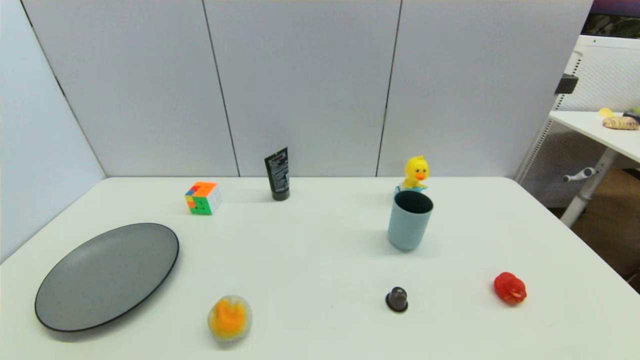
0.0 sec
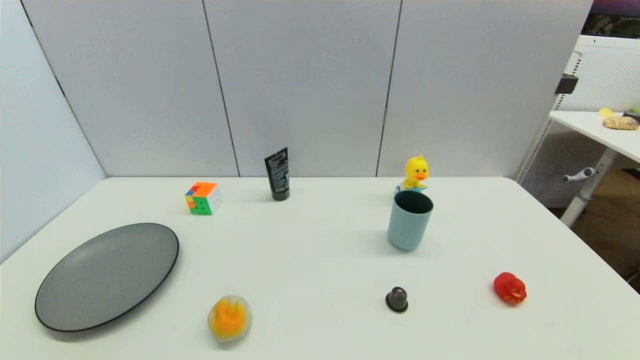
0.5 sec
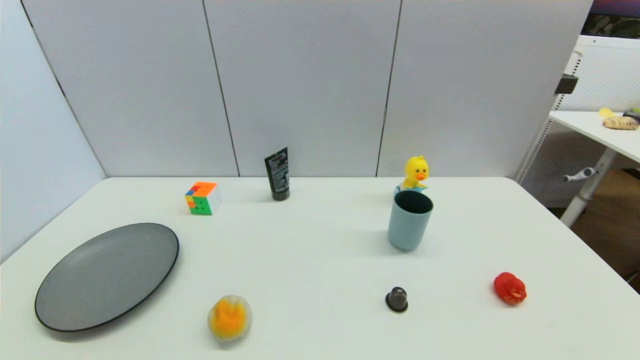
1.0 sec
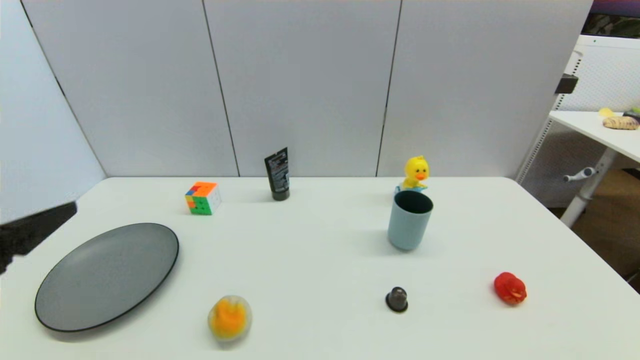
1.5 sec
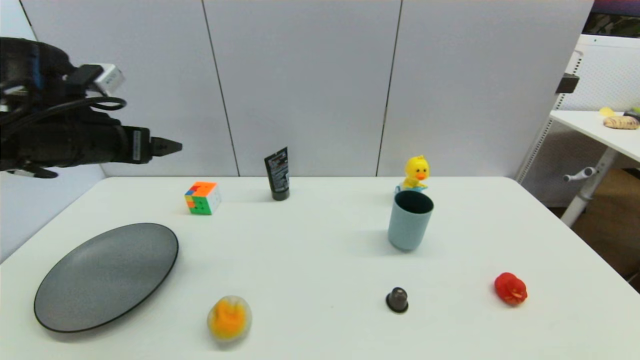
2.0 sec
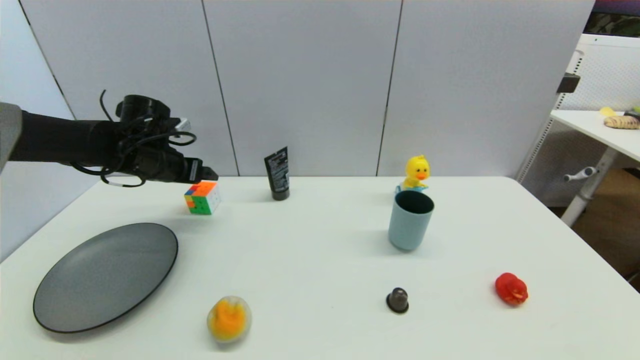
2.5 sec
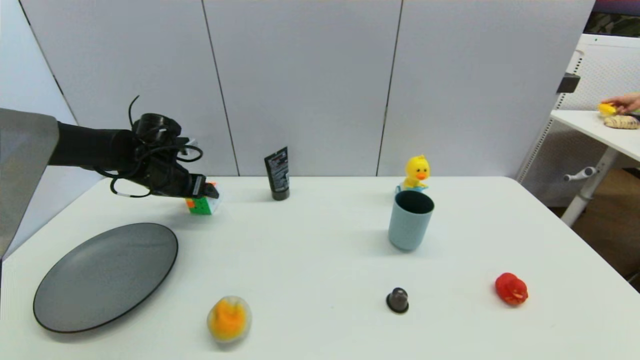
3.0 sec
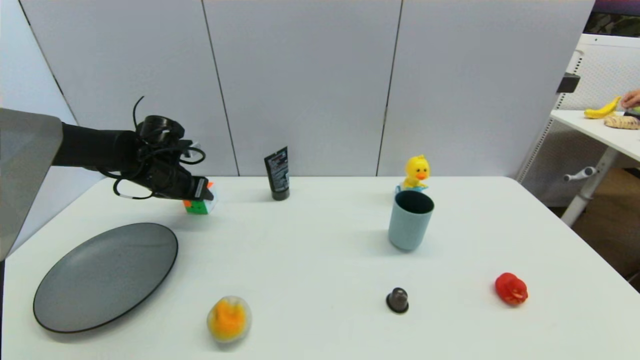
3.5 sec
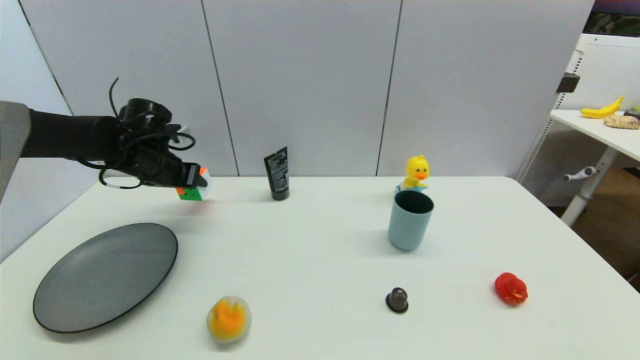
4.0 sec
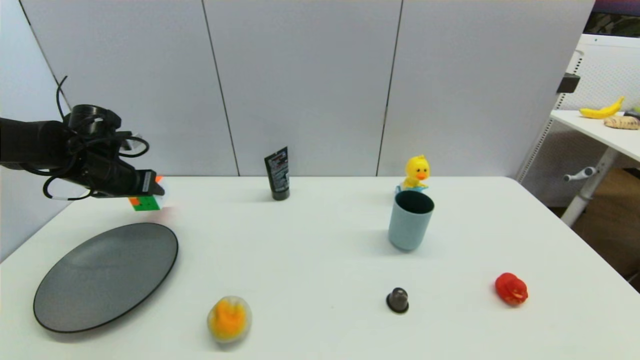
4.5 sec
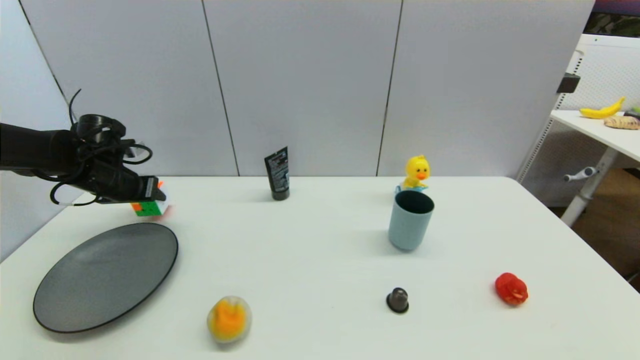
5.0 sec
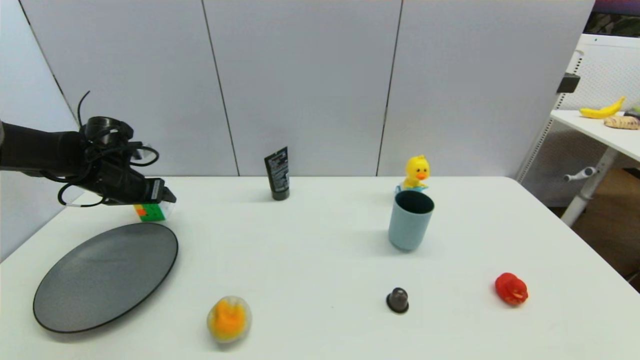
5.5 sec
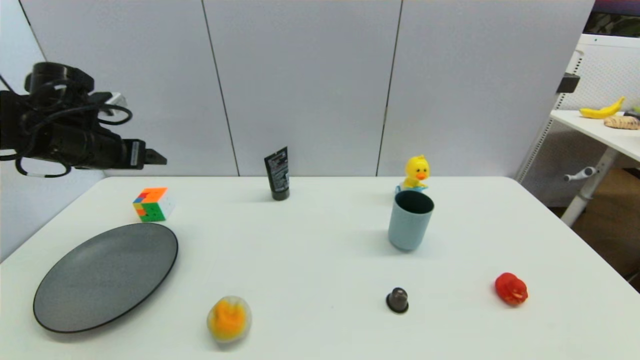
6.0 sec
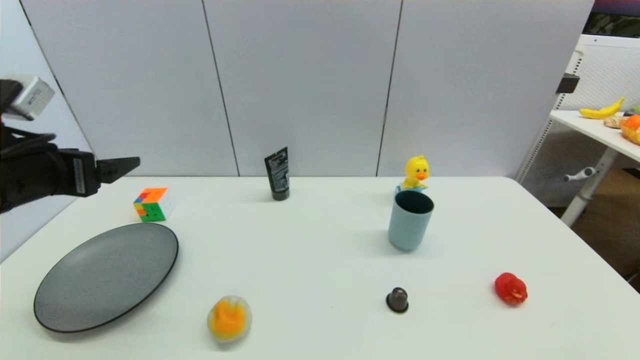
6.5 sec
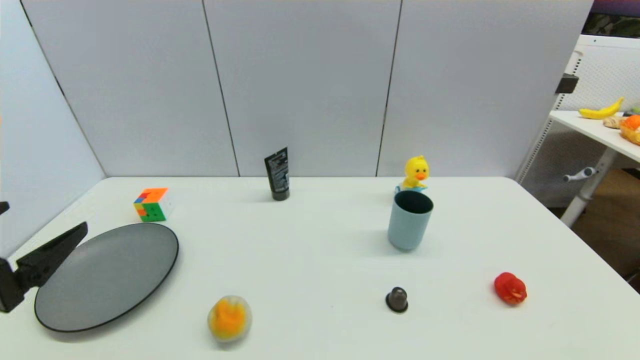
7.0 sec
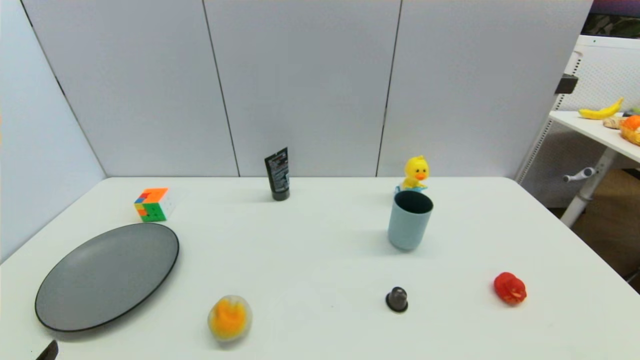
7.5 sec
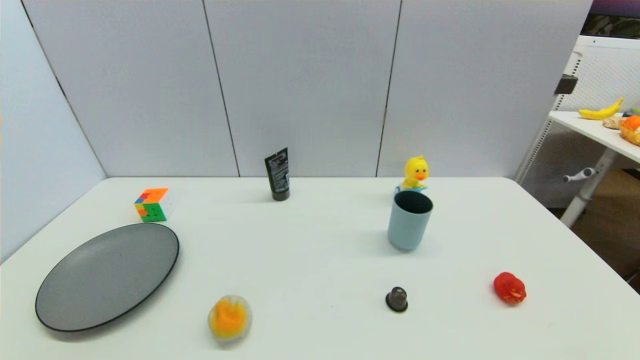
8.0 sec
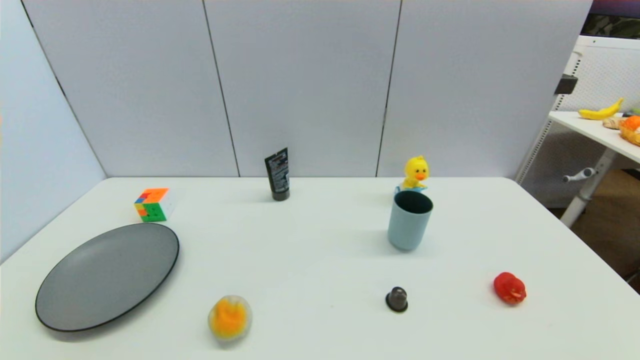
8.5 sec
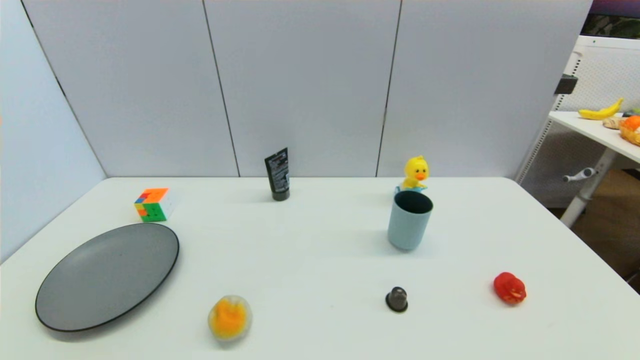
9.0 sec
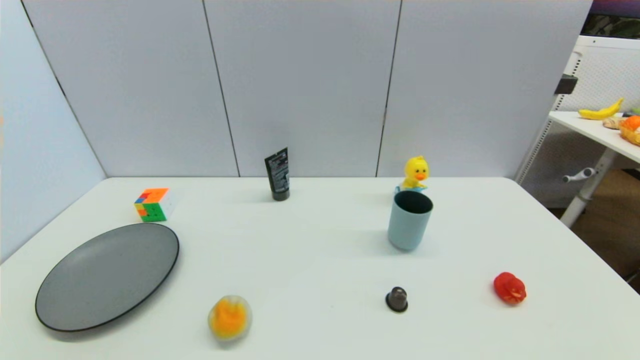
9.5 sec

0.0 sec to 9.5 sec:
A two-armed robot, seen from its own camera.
Step, 1.5 sec to 3.5 sec: Grasp the magic cube with left gripper.
Step, 4.0 sec to 5.5 sec: Place the magic cube on the table with left gripper.
0.0 sec to 2.0 sec: The left gripper heads forward and upward, covering about 35 cm.
2.0 sec to 4.0 sec: The left gripper heads forward and downward, covering some 15 cm, and closes up.
4.0 sec to 5.5 sec: The left gripper heads to the left, covering about 5 cm, and opens up.
5.5 sec to 7.5 sec: The left gripper moves backward, approximately 40 cm, and opens.

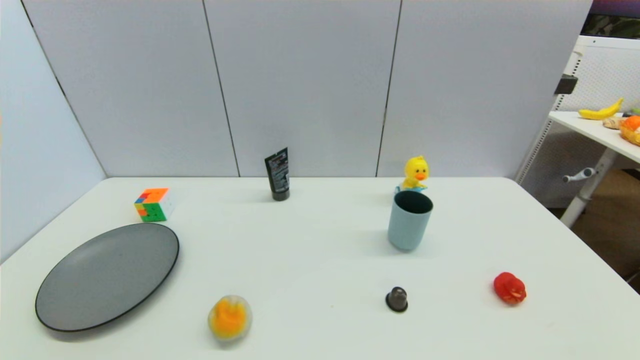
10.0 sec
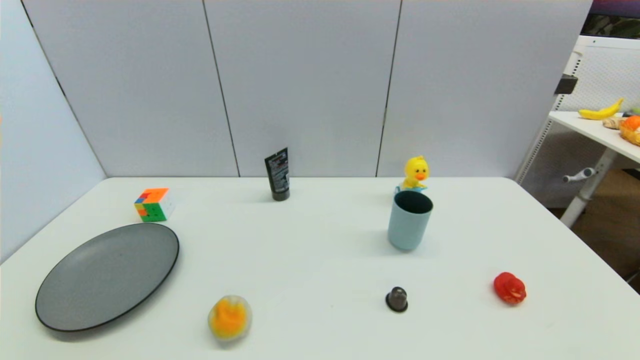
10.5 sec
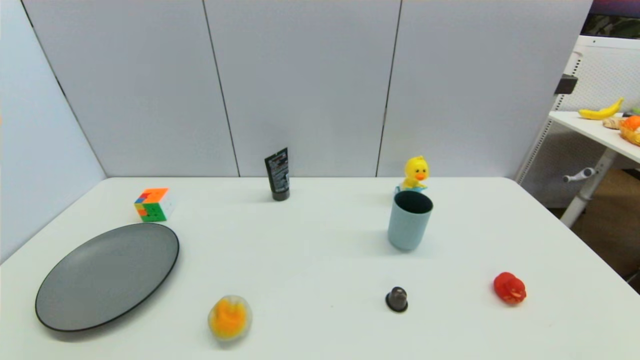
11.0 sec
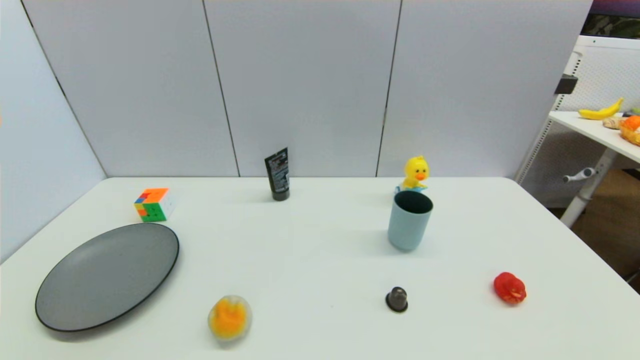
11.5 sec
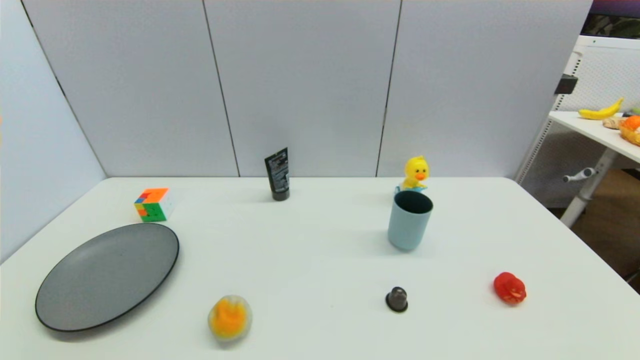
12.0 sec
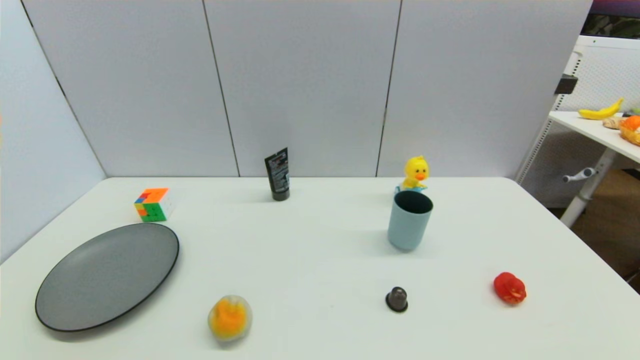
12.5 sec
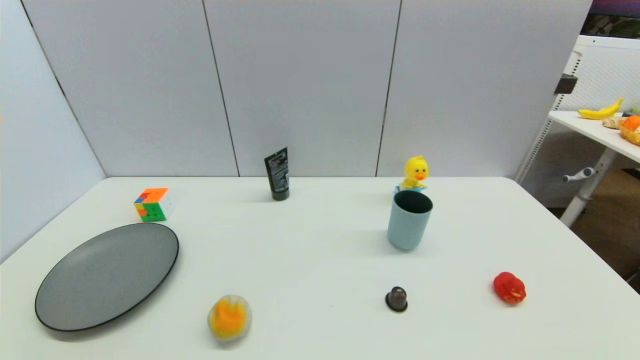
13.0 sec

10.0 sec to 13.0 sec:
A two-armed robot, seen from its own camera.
10.0 sec to 13.0 sec: Neither gripper changes place.

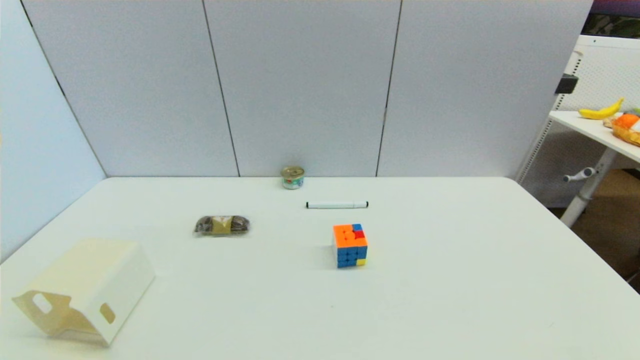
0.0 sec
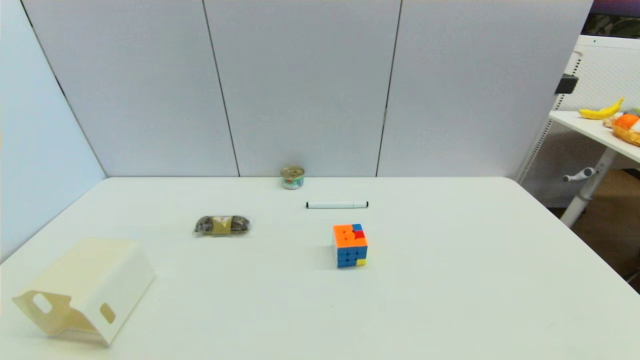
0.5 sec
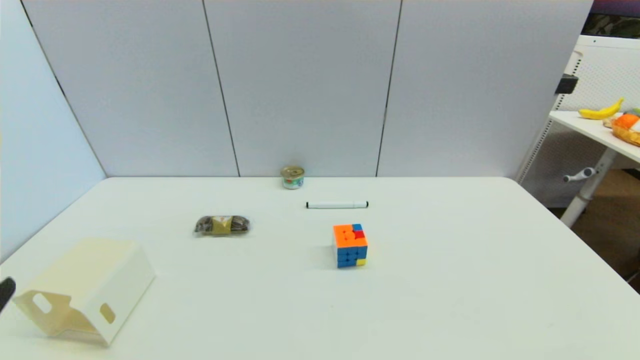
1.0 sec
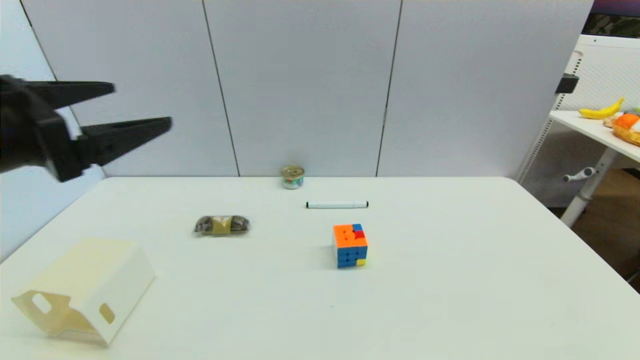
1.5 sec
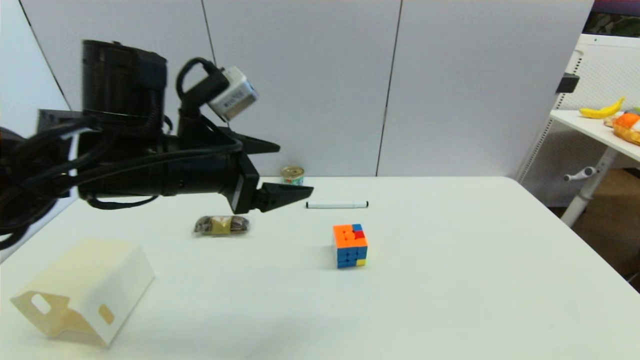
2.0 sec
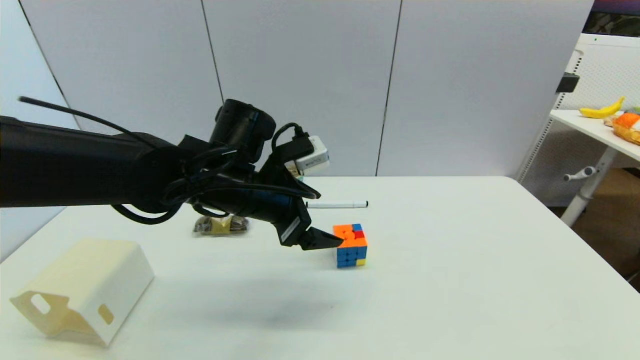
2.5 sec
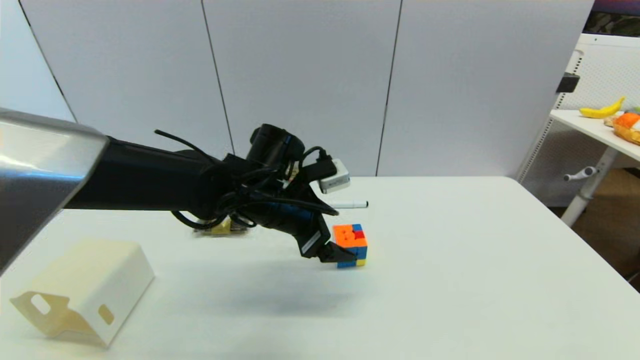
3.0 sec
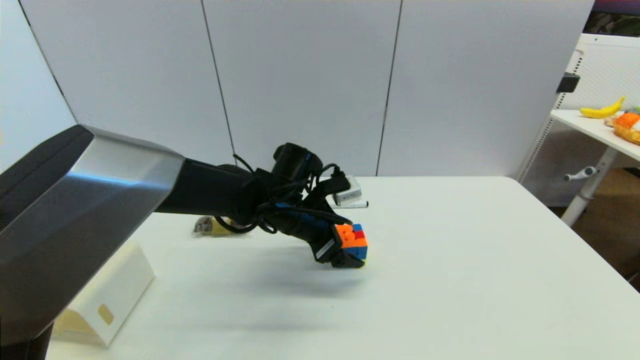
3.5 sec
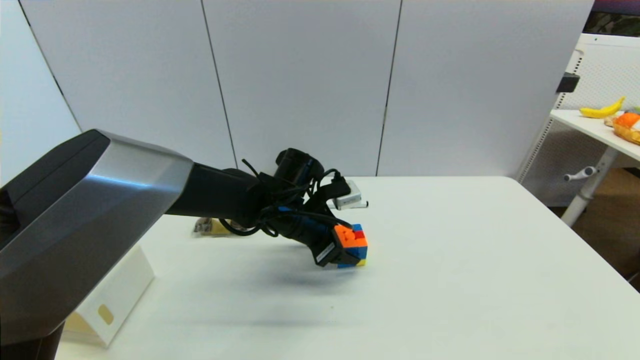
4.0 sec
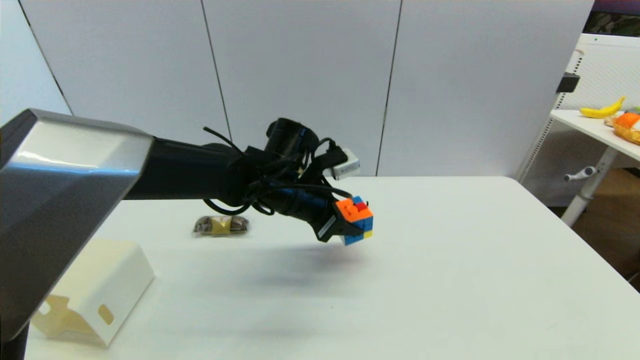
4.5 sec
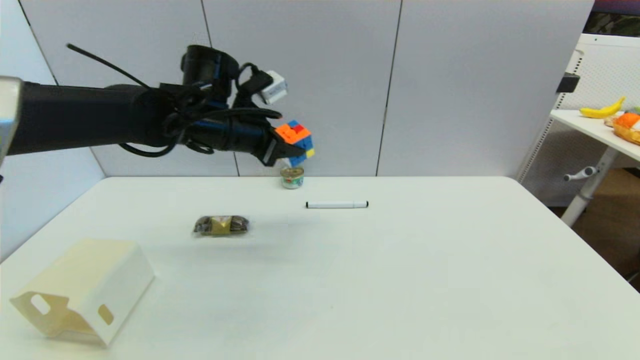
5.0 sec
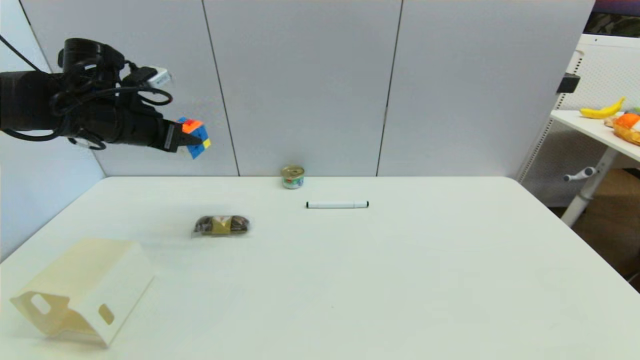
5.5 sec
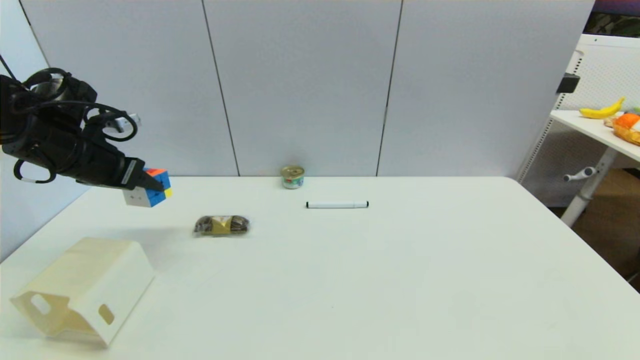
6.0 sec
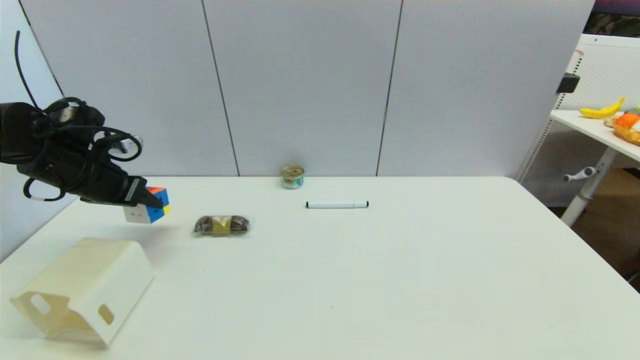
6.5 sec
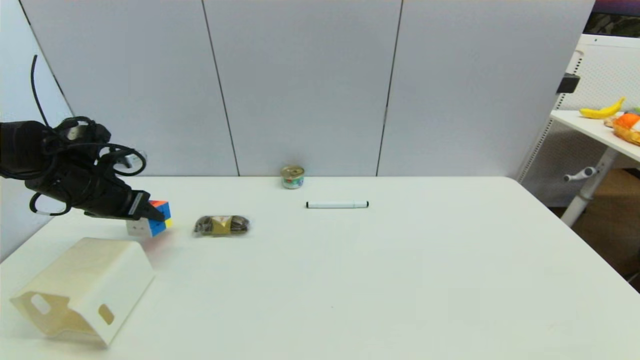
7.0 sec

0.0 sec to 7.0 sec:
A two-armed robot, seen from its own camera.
Step, 1.0 sec to 4.0 sec: Grasp the magic cube with left gripper.
0.0 sec to 2.0 sec: The left gripper travels forward, upward and to the right by about 35 cm.
2.0 sec to 3.5 sec: The left gripper goes some 20 cm downward, to the right and forward.
3.5 sec to 5.0 sec: The left gripper travels upward and to the left by some 15 cm, and closes its fingers.
5.0 sec to 7.0 sec: The left gripper heads to the left and downward, covering some 20 cm.
